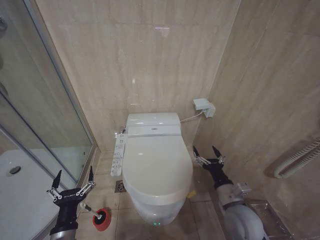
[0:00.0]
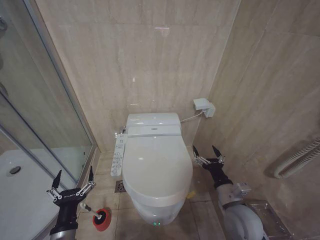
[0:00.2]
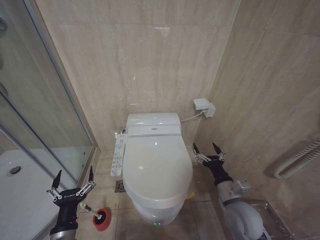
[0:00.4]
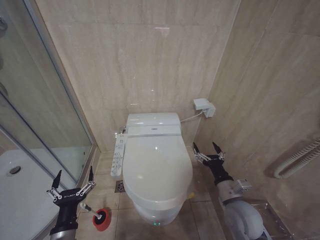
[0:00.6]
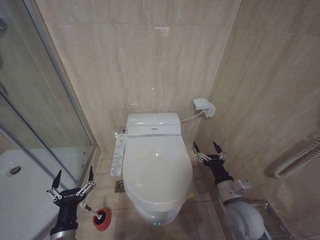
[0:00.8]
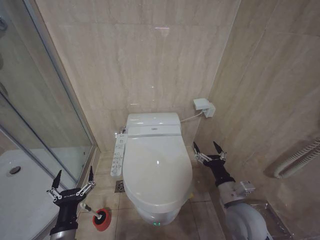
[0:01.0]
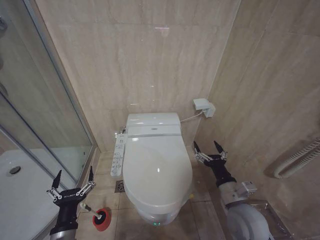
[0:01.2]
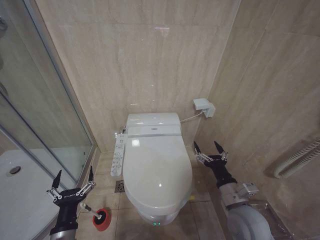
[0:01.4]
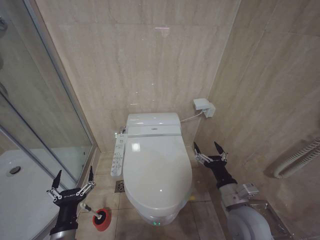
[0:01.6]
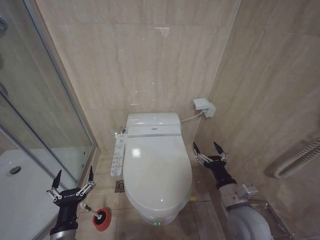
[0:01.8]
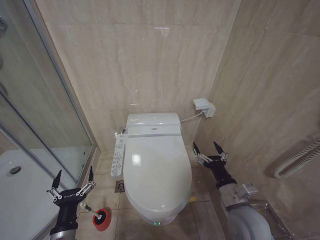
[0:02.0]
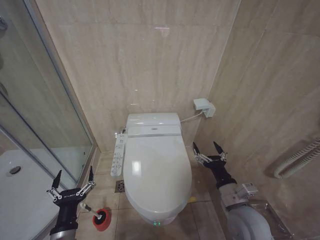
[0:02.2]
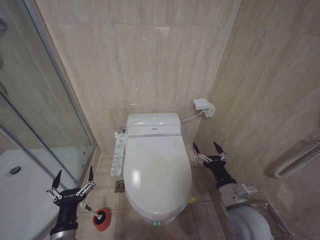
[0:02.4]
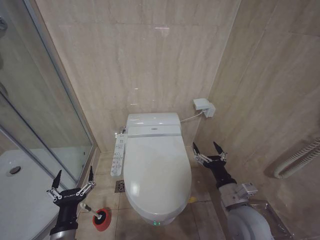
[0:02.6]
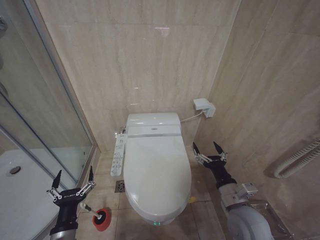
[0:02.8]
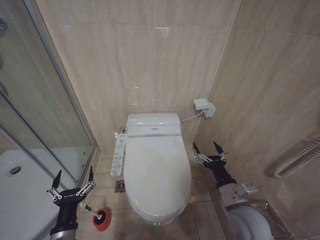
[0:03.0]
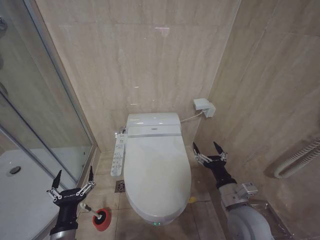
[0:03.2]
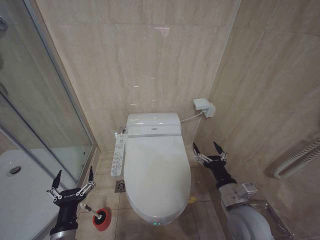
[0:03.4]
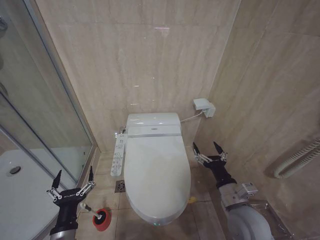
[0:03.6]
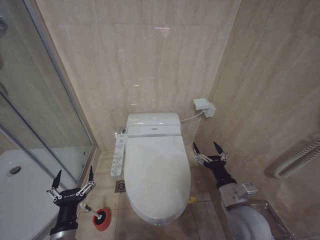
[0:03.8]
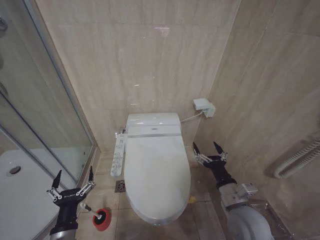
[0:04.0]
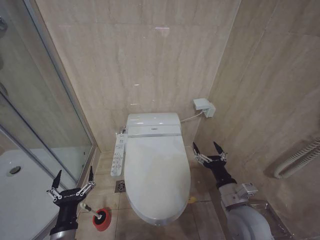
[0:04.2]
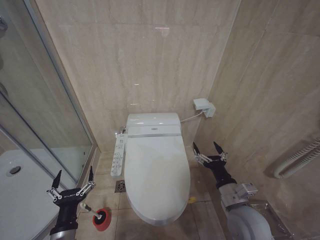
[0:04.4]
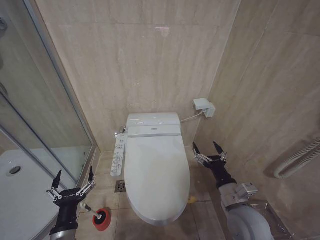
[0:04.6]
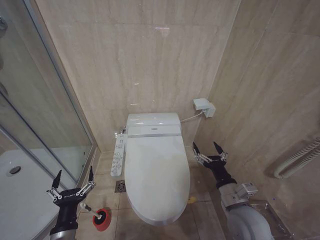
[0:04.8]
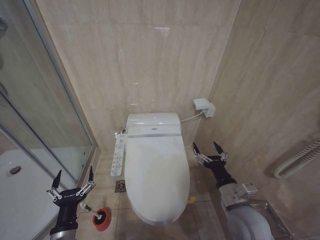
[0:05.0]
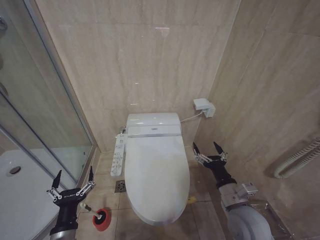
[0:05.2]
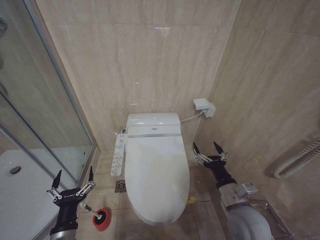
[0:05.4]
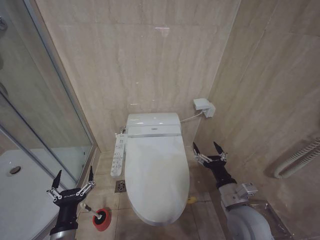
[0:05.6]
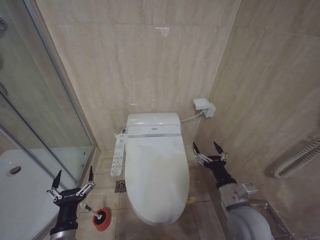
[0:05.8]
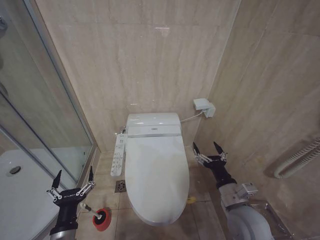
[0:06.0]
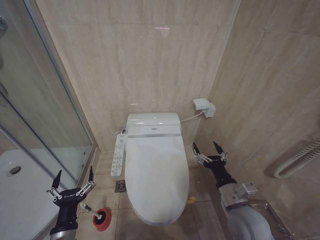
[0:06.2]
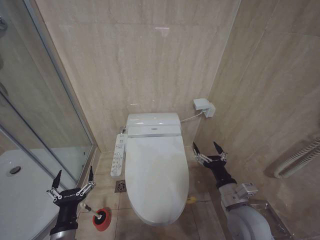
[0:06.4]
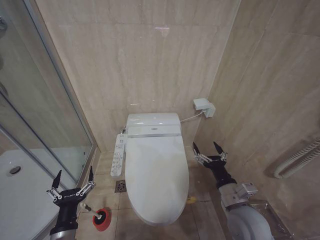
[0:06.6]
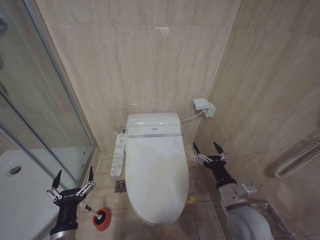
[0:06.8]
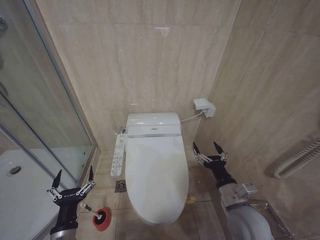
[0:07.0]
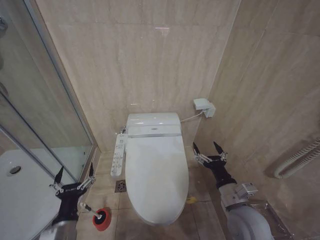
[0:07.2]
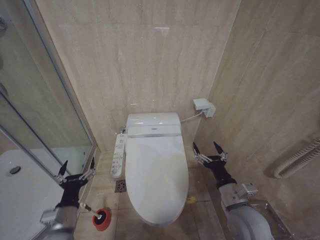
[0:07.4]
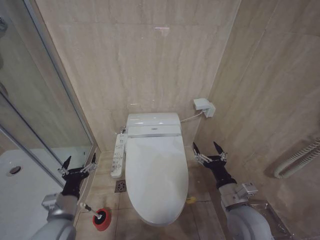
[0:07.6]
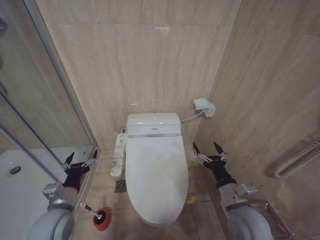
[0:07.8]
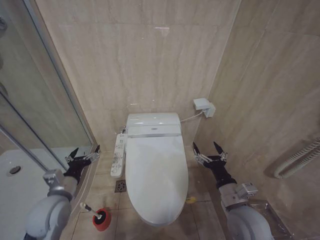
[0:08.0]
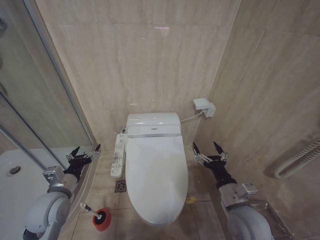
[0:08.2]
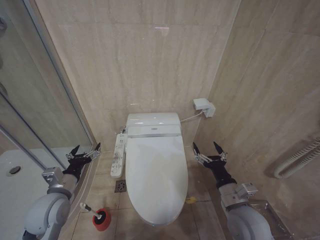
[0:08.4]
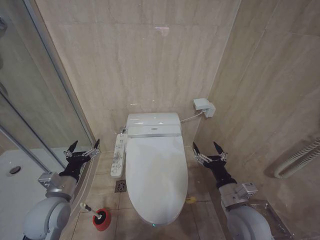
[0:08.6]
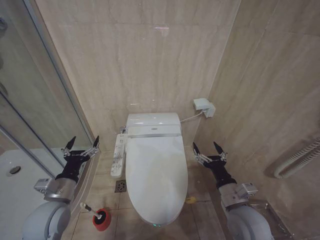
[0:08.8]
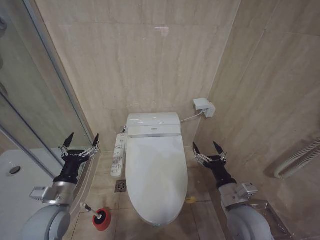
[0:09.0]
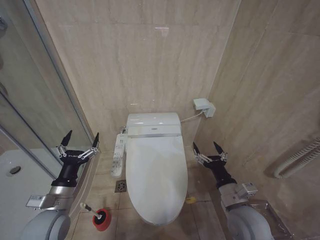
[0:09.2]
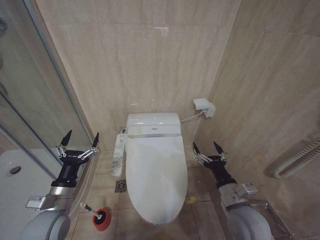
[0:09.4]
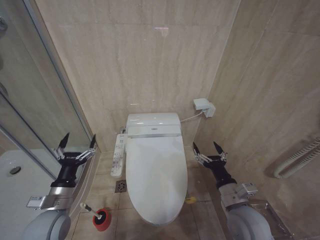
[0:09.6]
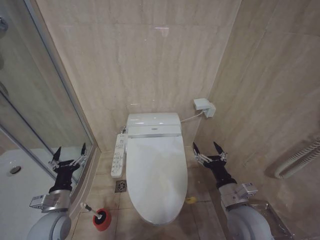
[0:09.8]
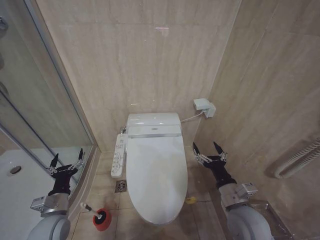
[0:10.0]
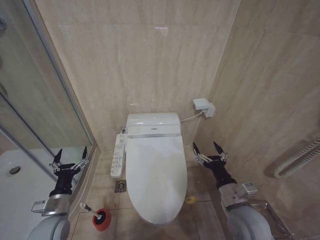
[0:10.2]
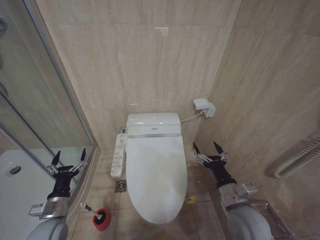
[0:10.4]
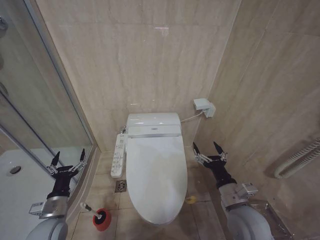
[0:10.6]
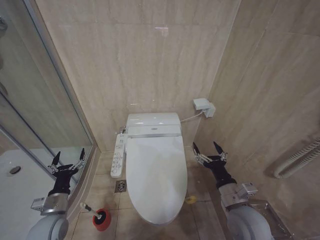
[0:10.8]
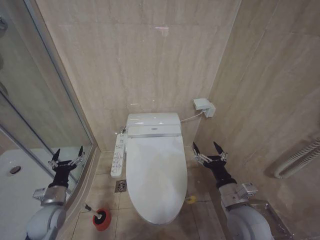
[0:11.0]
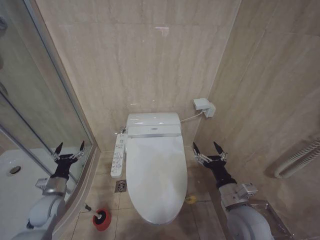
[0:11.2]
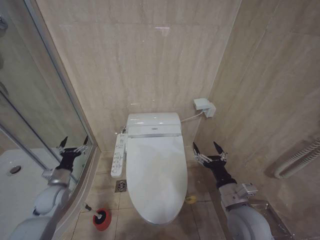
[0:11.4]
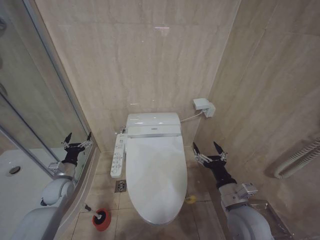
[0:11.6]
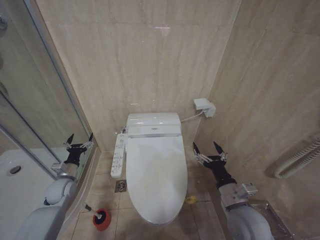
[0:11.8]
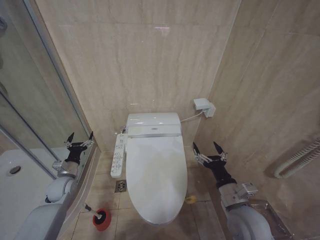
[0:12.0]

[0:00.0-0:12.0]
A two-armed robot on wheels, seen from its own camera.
Task of the whole recording: Open the toilet lid, clean the toilet bowl with a toilet brush, close the toilet lid, and flush.
0:00.0 to 0:01.6: The grippers stay close to where they were, moving slightly.
0:01.6 to 0:06.0: The two grippers keep their place.
0:06.0 to 0:07.6: The left gripper goes about 5 cm forward.
0:09.0 to 0:10.4: The left gripper travels downward by some 10 cm.
0:10.4 to 0:12.0: The left gripper travels forward by approximately 15 cm.

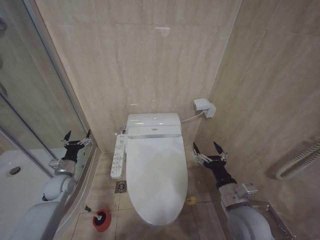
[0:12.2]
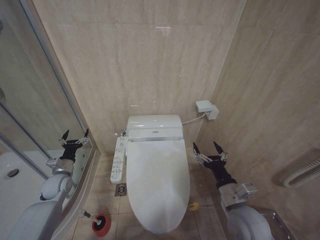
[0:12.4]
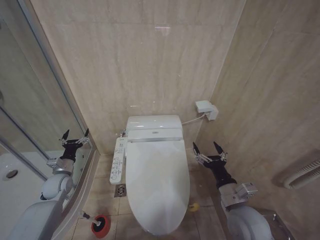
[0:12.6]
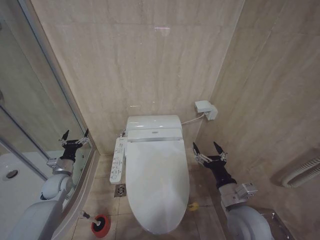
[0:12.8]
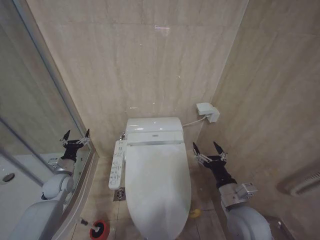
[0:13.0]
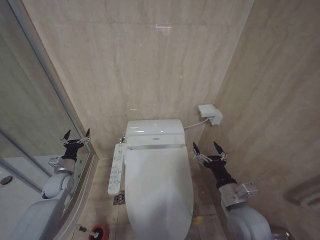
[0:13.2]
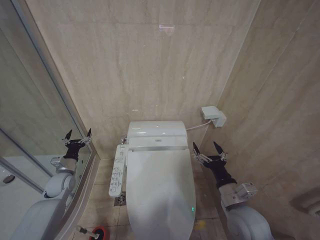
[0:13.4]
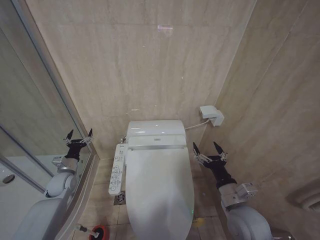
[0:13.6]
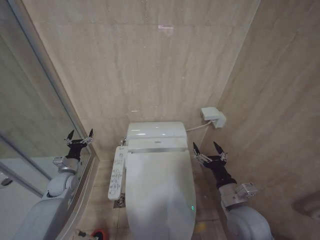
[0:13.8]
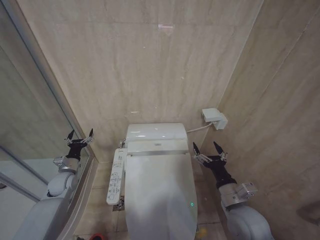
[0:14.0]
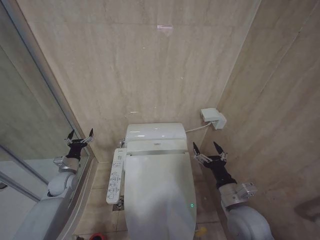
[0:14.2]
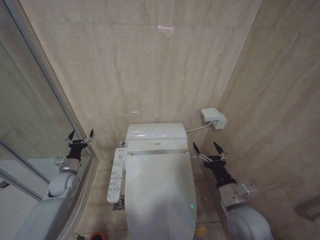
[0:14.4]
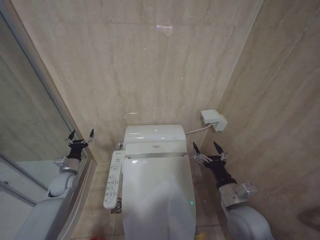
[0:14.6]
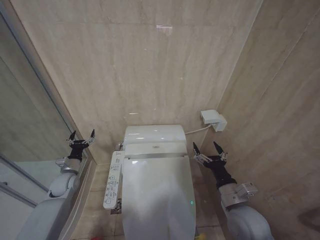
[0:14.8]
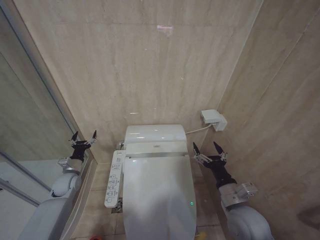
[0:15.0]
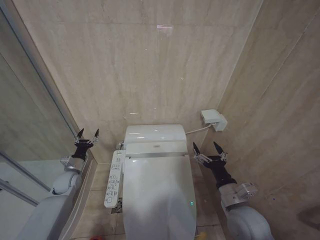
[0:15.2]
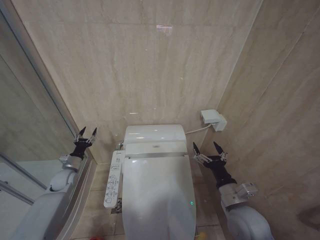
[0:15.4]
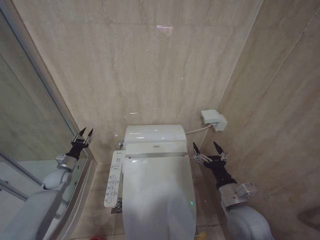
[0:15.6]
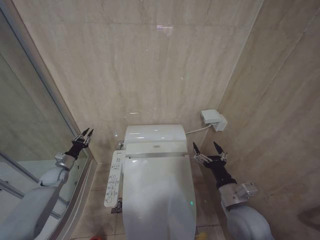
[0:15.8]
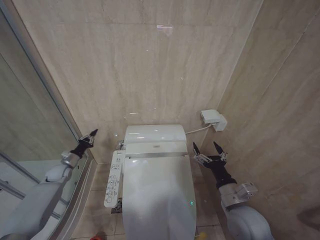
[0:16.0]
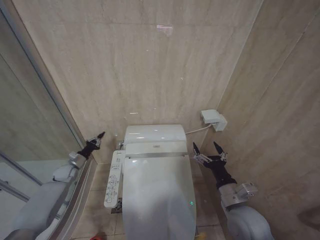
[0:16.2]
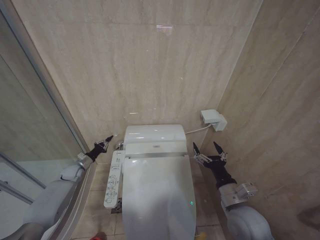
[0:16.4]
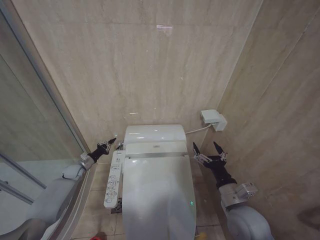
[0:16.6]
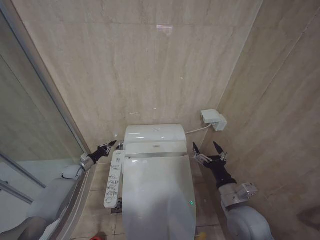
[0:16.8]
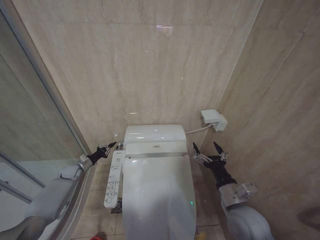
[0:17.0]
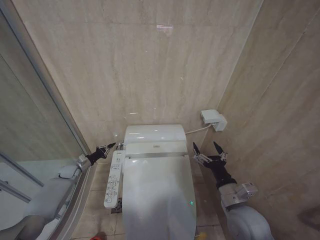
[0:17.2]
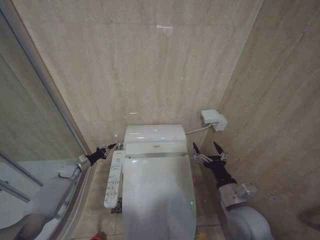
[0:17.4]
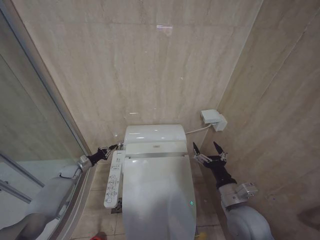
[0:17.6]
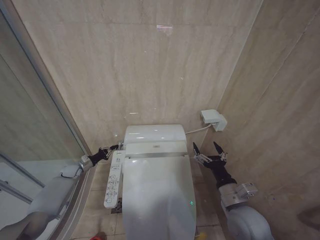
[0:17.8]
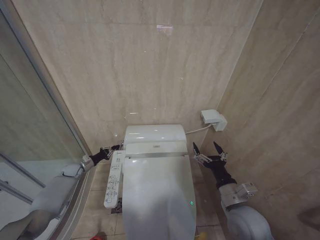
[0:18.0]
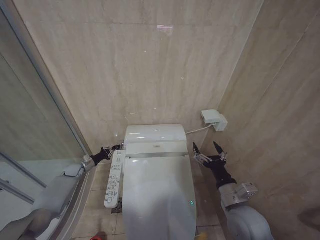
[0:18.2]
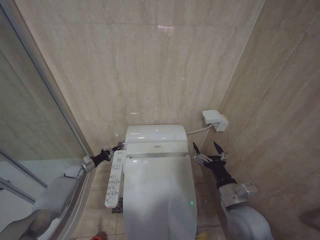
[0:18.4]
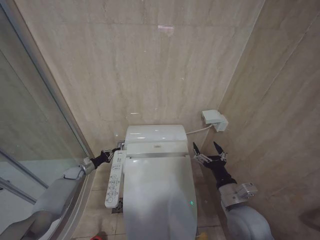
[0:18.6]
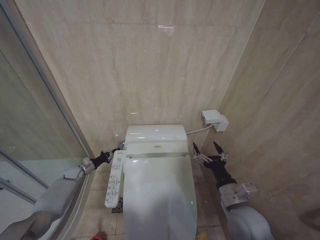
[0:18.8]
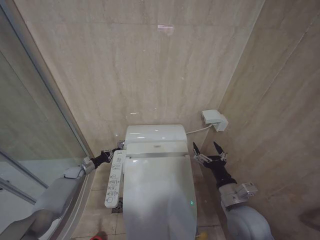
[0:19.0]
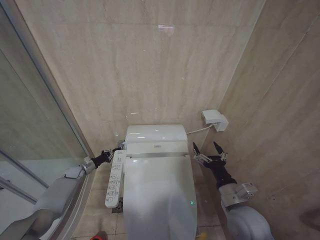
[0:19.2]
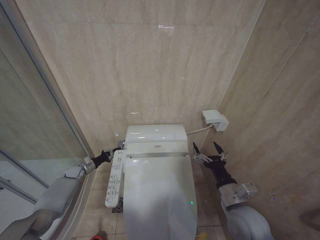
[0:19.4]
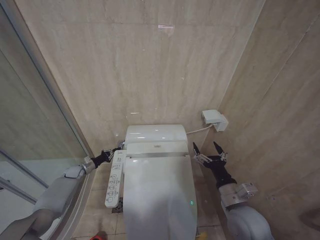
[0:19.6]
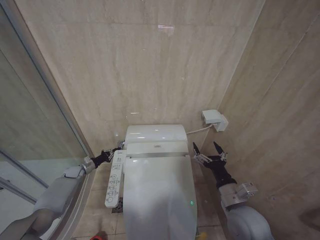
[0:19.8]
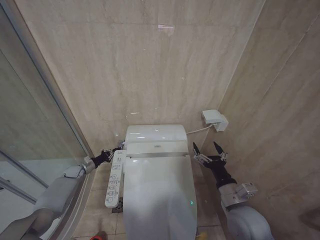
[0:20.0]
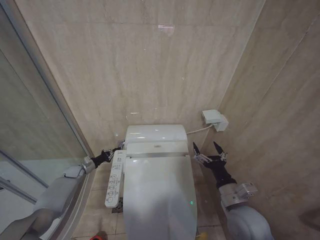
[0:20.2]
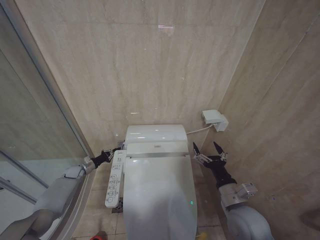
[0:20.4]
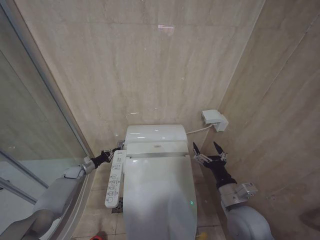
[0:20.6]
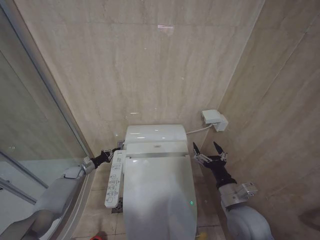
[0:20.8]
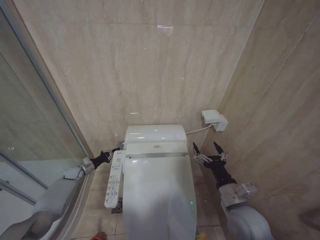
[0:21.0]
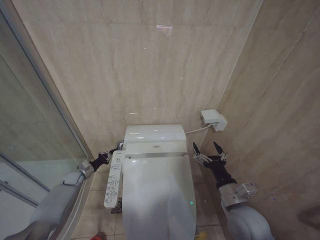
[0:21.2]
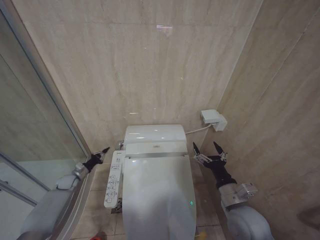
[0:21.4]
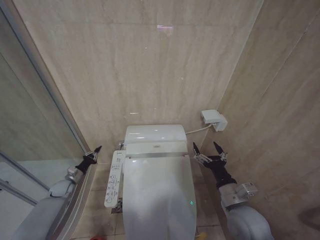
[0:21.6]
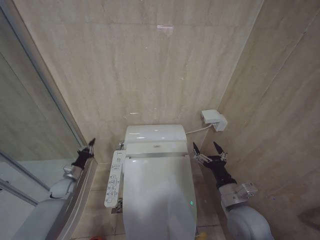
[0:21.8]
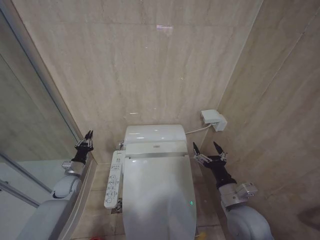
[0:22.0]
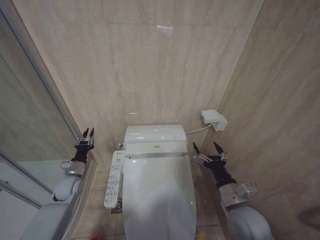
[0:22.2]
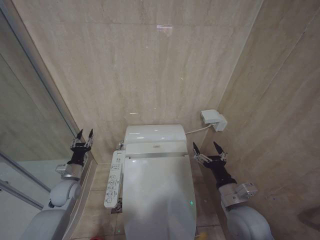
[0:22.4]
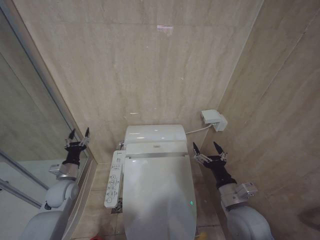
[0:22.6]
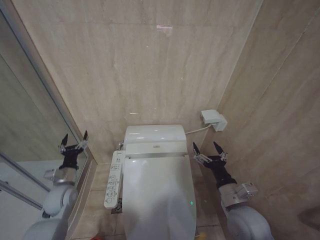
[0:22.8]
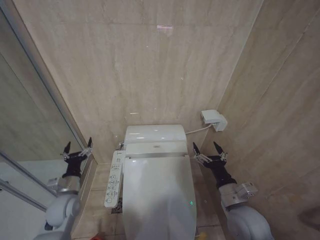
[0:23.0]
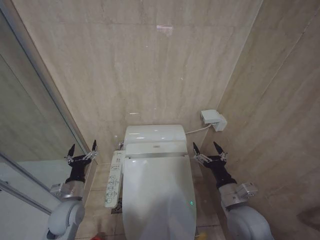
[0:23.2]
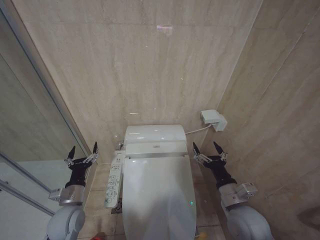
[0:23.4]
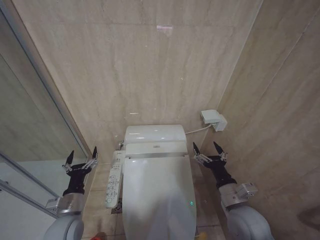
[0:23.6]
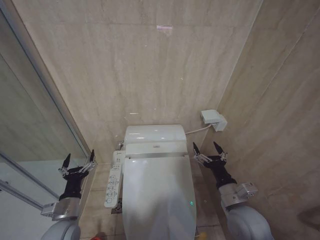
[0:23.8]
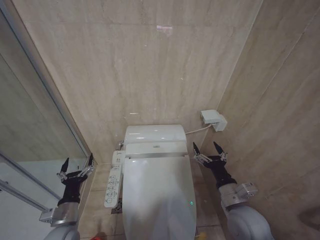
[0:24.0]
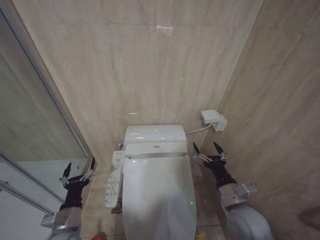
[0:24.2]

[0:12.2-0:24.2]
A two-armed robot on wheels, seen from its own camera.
Task of the whole recording: Open the toilet lid, clean the toilet bowl with a toilet brush, close the toilet lid, and flush.
0:12.2 to 0:15.2: The grippers move only a little.
0:15.2 to 0:16.6: The left gripper travels forward and downward by some 10 cm, and closes up.
0:16.6 to 0:18.2: The grippers stay close to where they were, moving slightly.
0:19.8 to 0:21.2: The grippers make only small movements.
0:21.2 to 0:22.6: The left gripper heads backward, upward and to the right, covering roughly 20 cm, and opens.
0:22.6 to 0:24.2: The left gripper shifts about 15 cm backward and to the right, and opens up.
